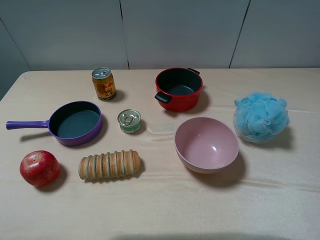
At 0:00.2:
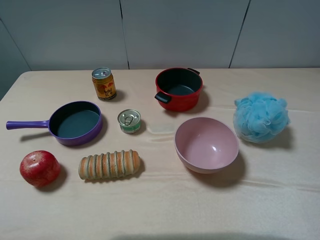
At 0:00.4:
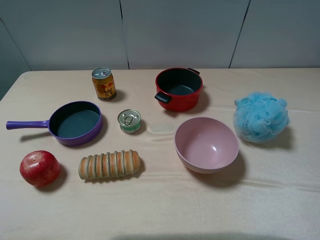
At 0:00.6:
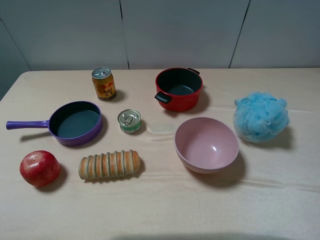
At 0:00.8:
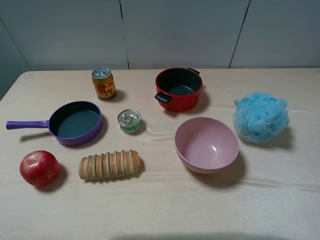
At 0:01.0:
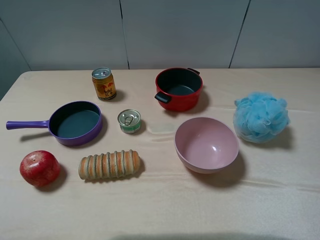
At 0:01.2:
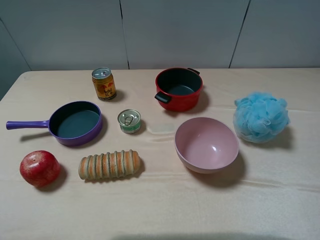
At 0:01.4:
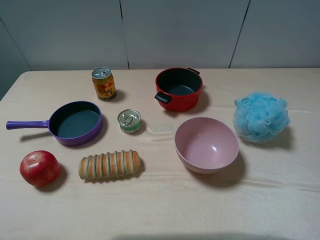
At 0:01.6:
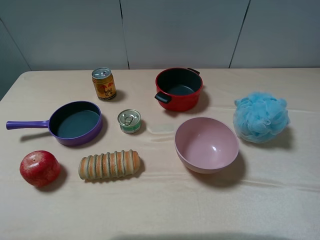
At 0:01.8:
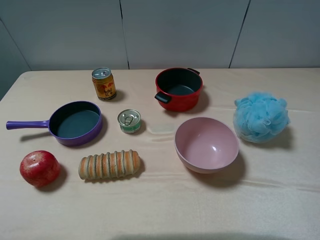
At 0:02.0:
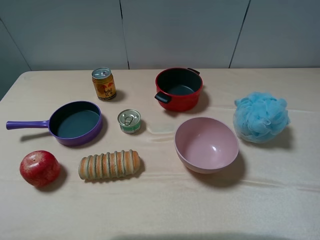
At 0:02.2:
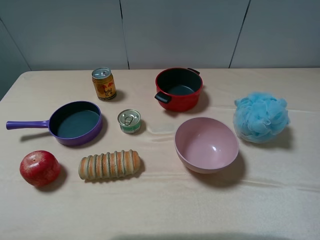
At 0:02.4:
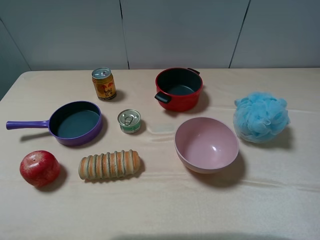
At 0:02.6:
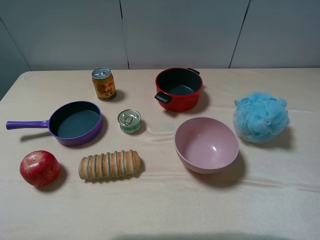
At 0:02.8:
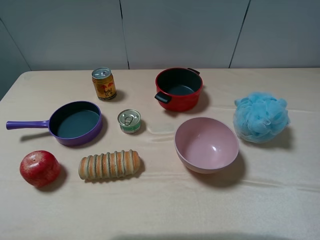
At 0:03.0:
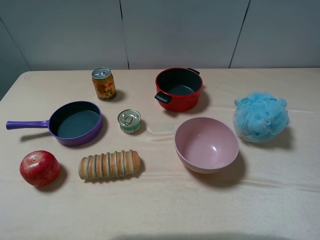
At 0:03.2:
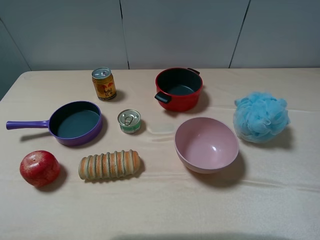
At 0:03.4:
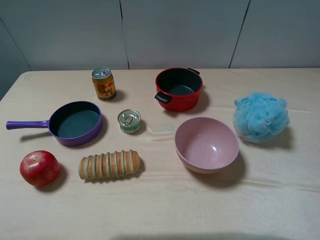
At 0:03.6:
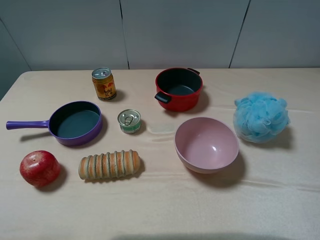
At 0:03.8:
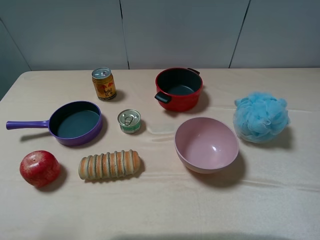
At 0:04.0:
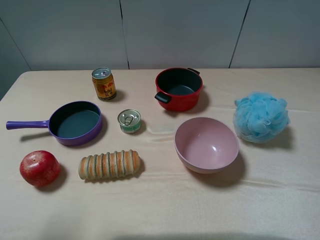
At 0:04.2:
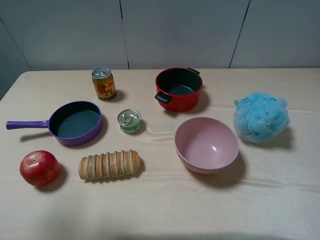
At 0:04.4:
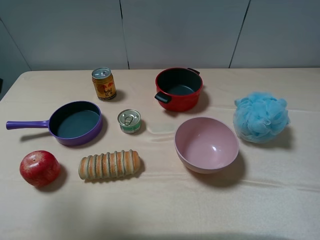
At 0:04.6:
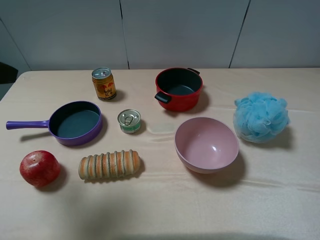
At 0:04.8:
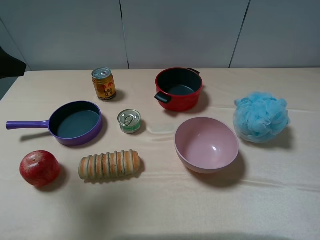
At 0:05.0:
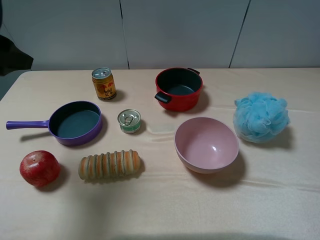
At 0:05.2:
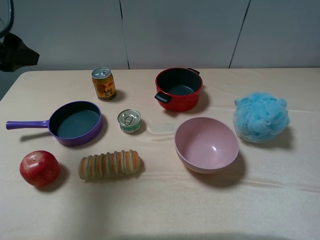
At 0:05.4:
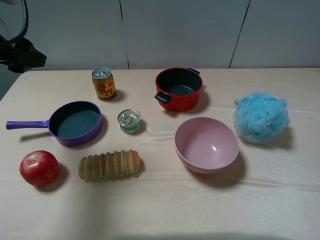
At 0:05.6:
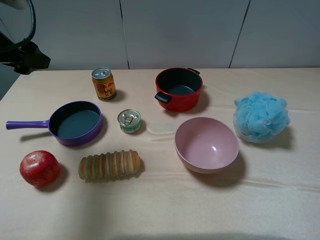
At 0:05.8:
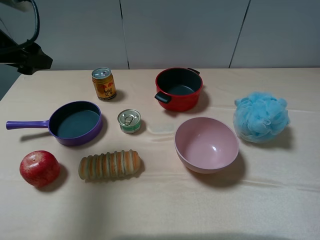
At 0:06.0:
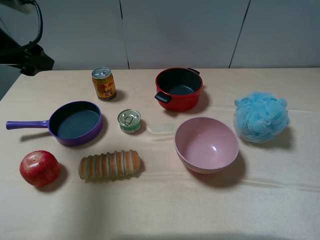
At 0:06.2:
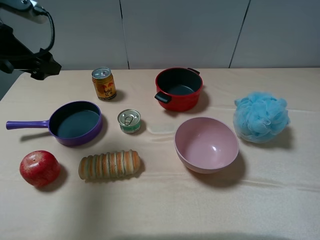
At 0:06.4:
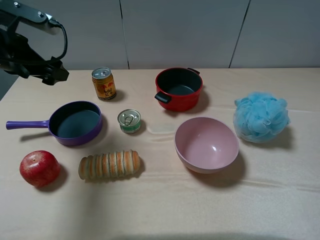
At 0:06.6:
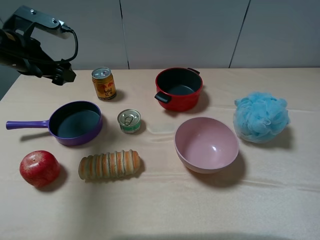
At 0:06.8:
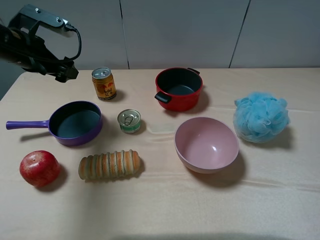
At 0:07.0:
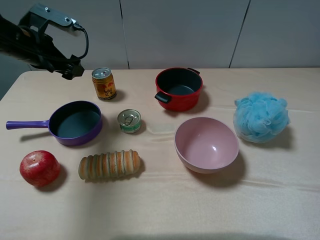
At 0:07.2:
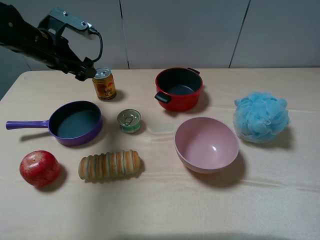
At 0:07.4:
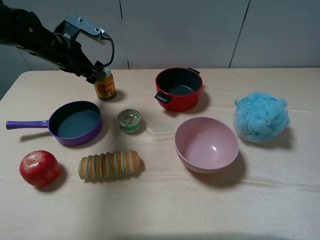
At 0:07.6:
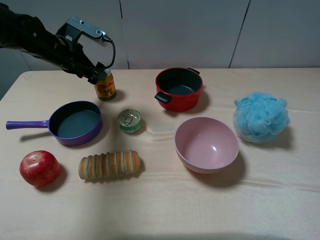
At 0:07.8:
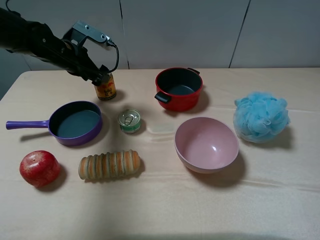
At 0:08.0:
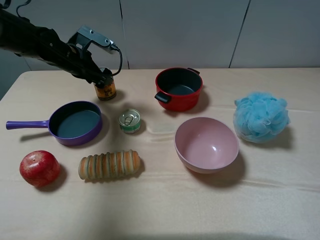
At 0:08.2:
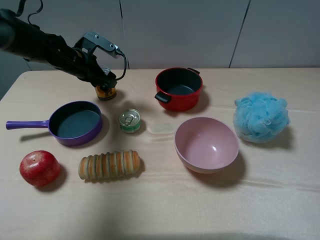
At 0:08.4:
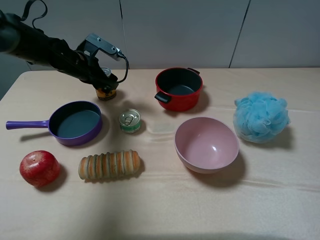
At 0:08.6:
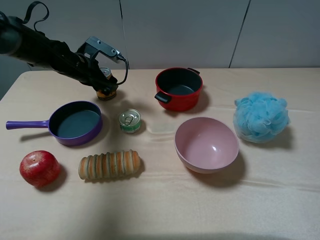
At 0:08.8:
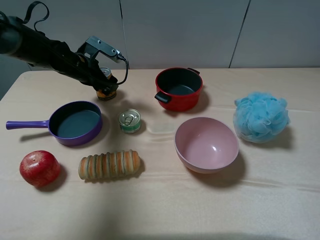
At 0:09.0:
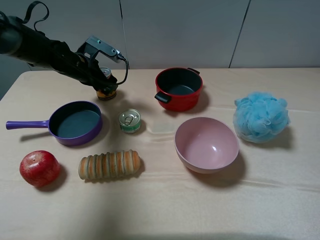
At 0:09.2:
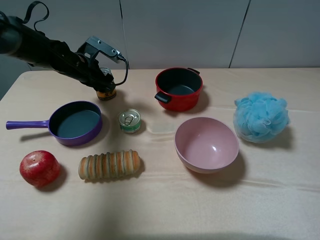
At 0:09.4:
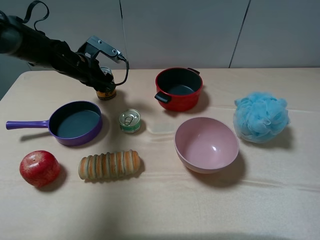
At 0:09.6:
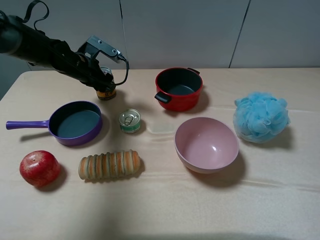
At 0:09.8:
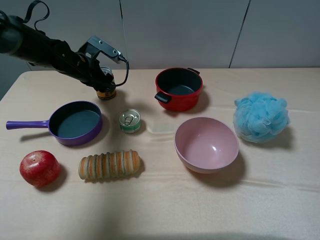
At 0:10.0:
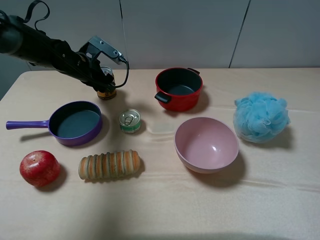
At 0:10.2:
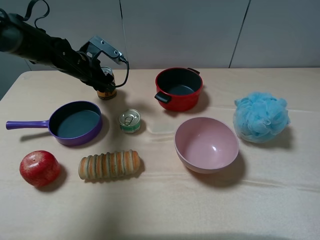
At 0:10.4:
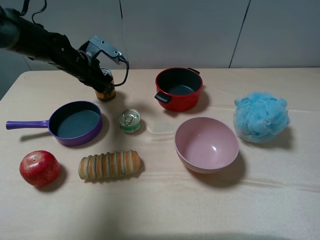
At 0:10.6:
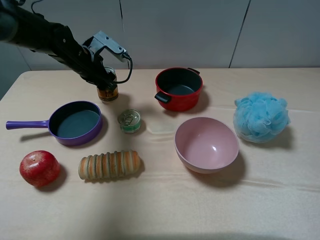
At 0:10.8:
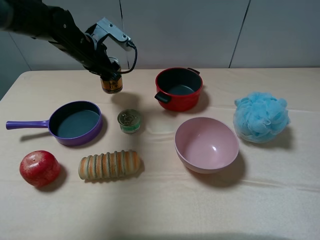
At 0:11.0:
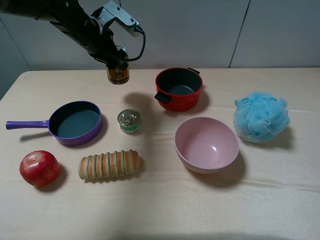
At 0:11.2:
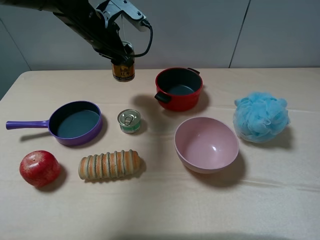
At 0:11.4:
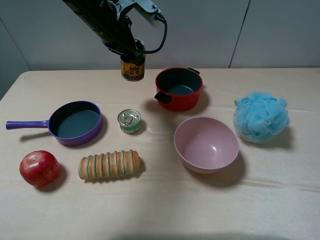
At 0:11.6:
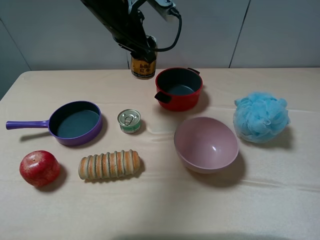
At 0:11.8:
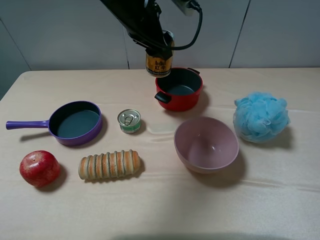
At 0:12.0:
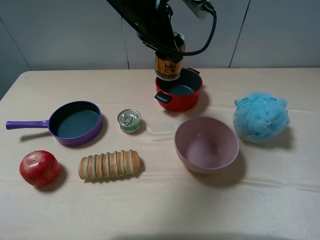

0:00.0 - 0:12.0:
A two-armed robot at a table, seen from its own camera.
Task of the whole recording: pick up an item with a gripper and place it in a random container on the table.
Step, 0:00.0 - 0:09.6: Grasp the red bull with the left gripper.
0:00.0 - 0:03.0: Neither gripper changes place.
0:03.0 - 0:04.4: The left gripper moves forward, roughly 15 cm.
0:04.4 - 0:06.0: The left gripper is displaced forward by some 15 cm.
0:06.0 - 0:07.6: The left gripper heads forward, downward and to the right, covering roughly 20 cm.
0:07.6 - 0:09.0: The left gripper goes roughly 5 cm downward.
0:09.0 - 0:10.4: The left gripper closes up.
0:10.4 - 0:12.0: The left gripper moves to the right and upward, roughly 20 cm.

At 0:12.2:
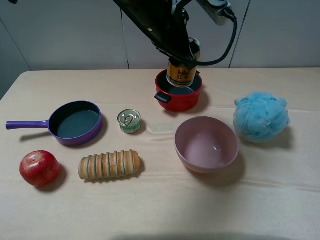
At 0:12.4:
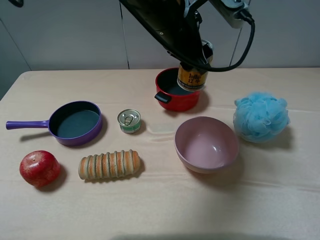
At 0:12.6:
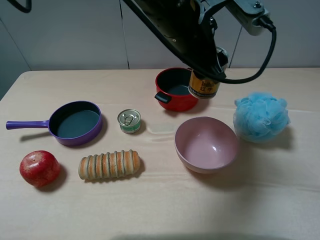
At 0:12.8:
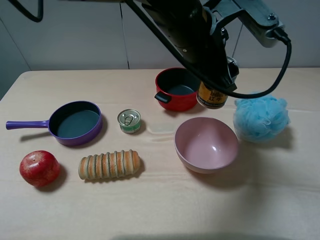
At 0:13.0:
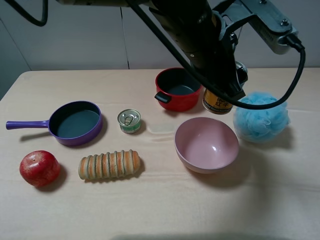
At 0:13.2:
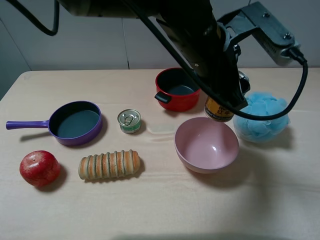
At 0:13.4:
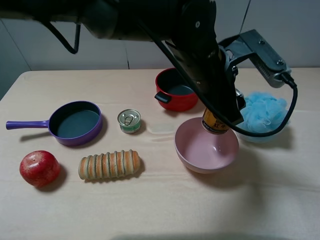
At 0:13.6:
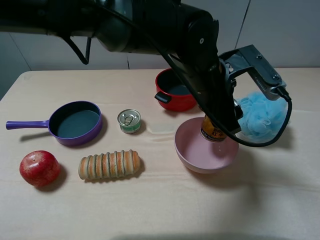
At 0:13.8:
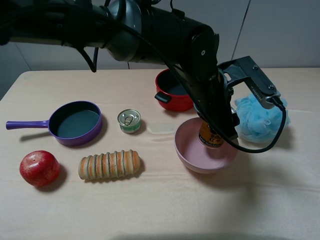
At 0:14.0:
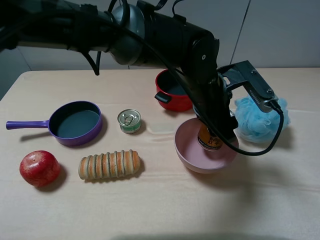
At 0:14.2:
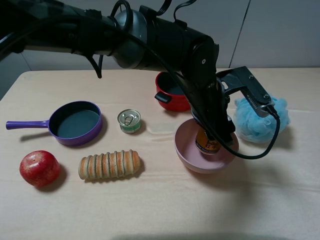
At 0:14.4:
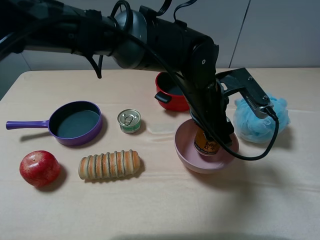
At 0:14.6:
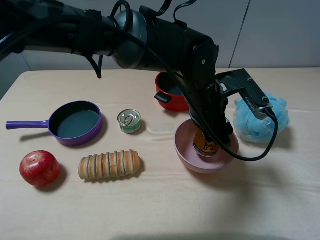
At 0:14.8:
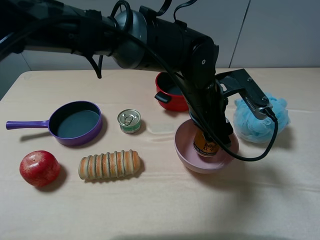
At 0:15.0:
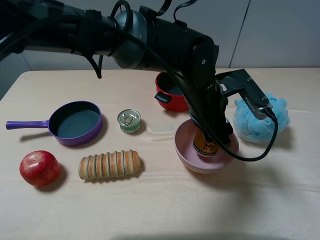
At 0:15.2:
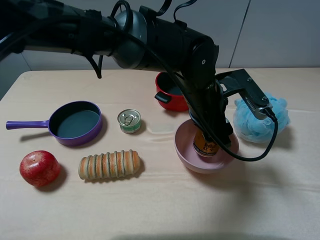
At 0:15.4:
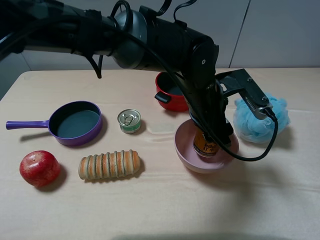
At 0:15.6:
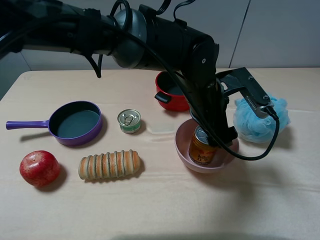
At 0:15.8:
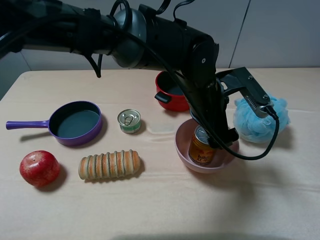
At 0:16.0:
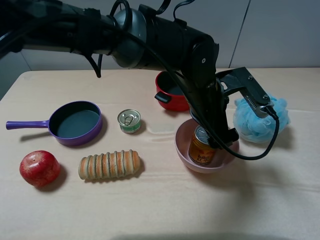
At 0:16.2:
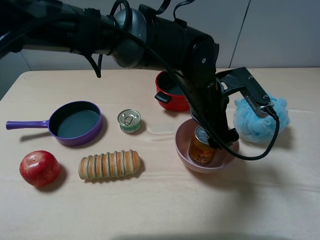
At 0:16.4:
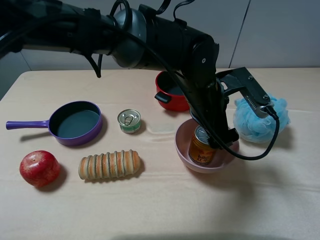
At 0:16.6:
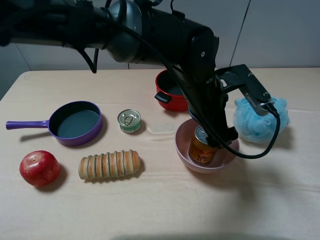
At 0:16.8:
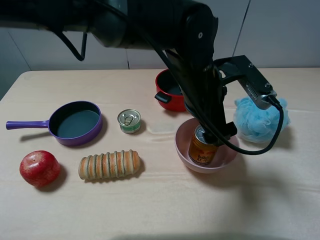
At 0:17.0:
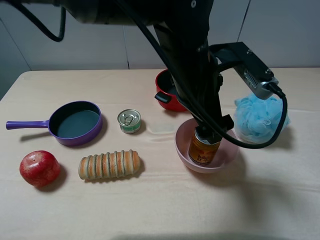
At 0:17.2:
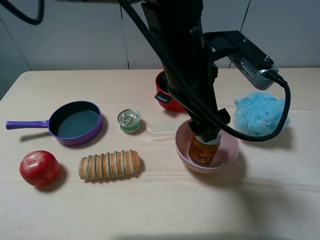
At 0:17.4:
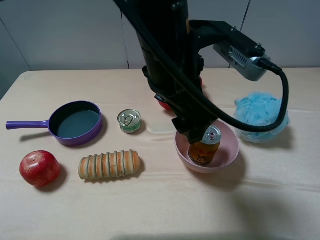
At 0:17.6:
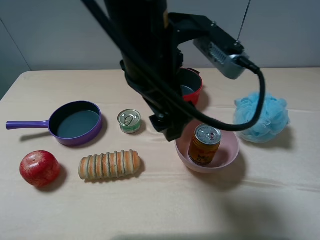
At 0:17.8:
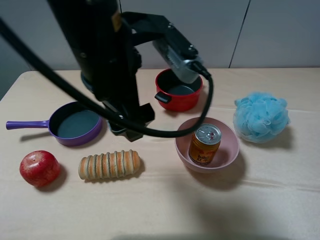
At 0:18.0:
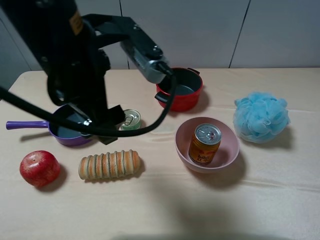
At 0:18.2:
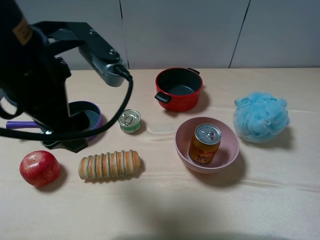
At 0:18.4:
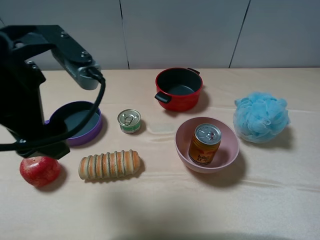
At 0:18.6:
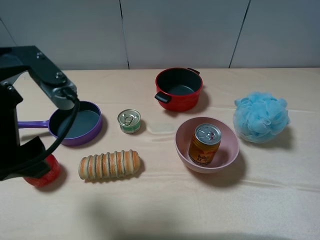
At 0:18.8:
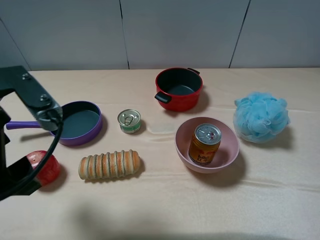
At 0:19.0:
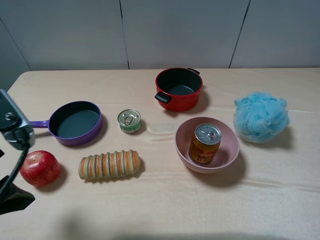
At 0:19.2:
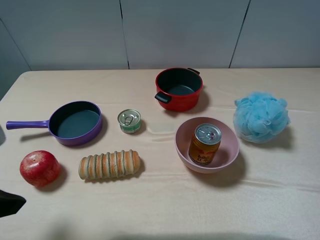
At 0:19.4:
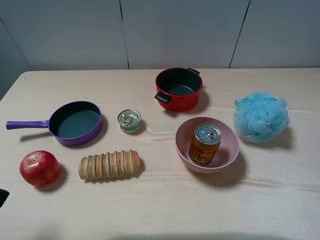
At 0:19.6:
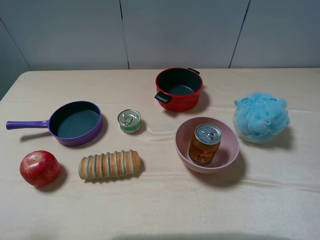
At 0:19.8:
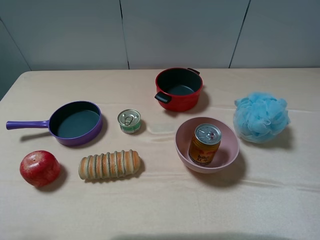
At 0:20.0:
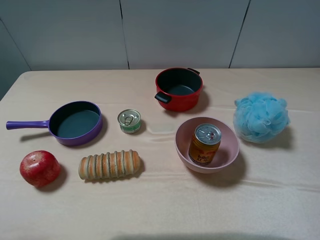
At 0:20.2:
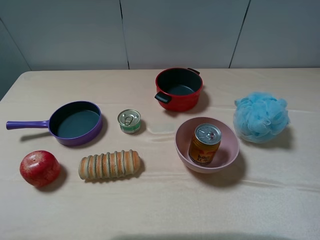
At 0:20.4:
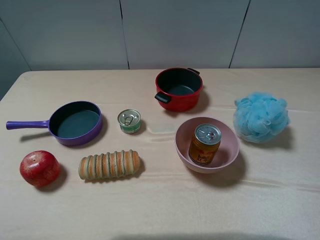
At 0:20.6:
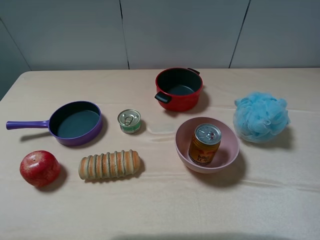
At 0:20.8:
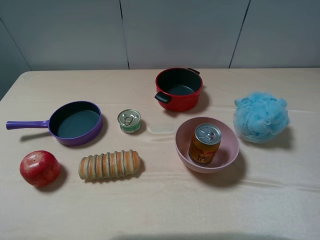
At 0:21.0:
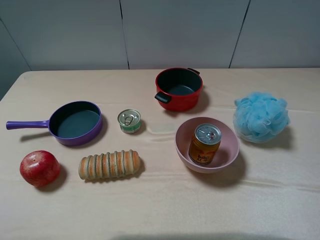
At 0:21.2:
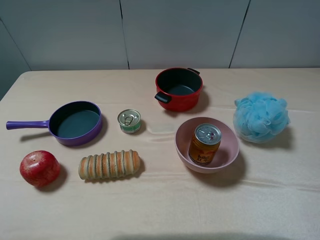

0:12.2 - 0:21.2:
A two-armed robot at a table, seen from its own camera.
Task of the whole recording: pick up an item with a gripper and place it in a random container on the table.
Step, 0:12.2 - 0:16.0: Place the red bull into the pink bowl with the left gripper.
0:12.2 - 0:13.8: The left gripper travels downward, to the right and backward by some 15 cm.
0:13.8 - 0:15.2: There are only small adjustments of the grippers.
0:15.2 - 0:16.6: The left gripper opens its fingers.
0:16.6 - 0:18.2: The left gripper goes roughly 25 cm to the left and upward.
0:18.2 - 0:19.8: The left gripper moves to the left and backward, about 20 cm.
